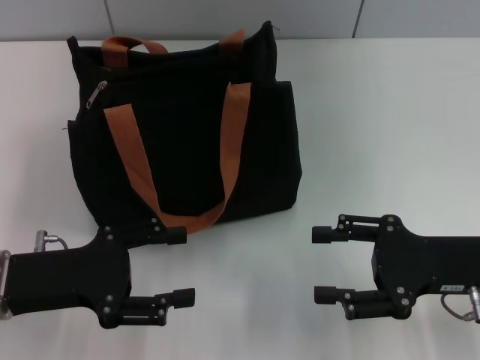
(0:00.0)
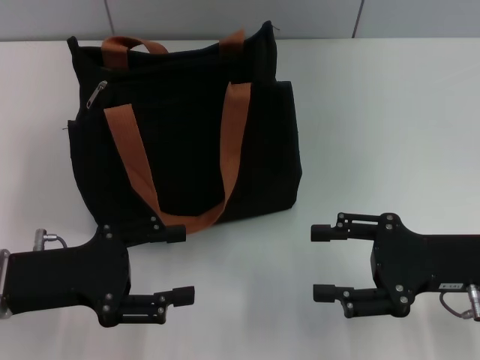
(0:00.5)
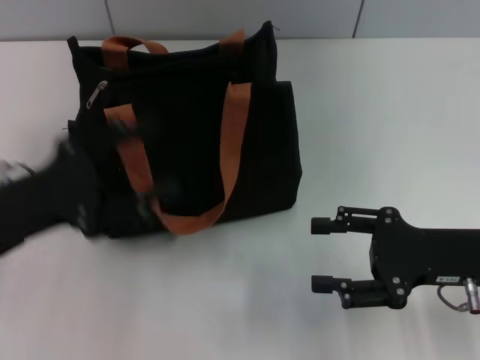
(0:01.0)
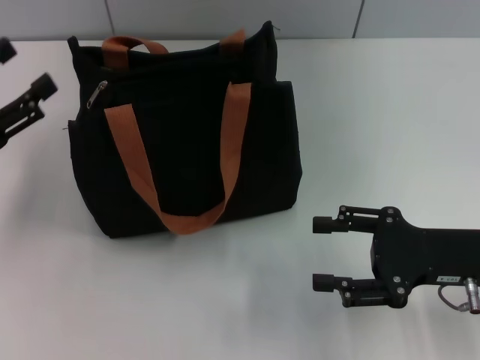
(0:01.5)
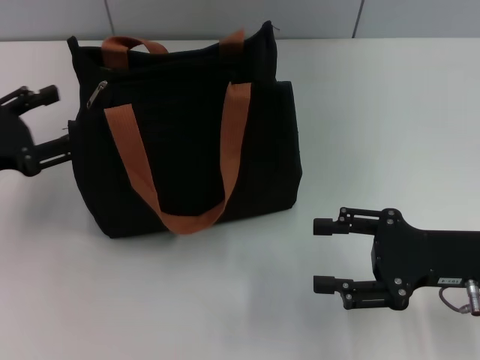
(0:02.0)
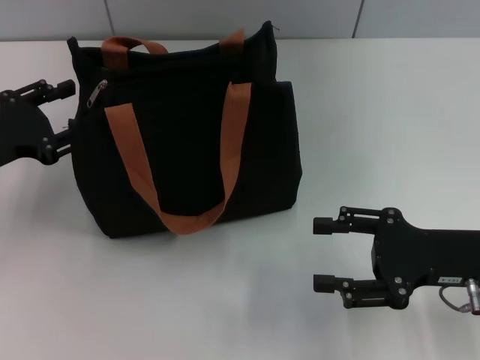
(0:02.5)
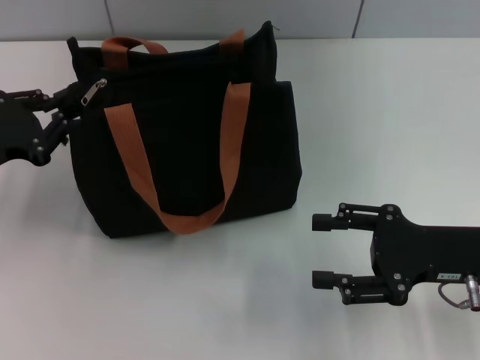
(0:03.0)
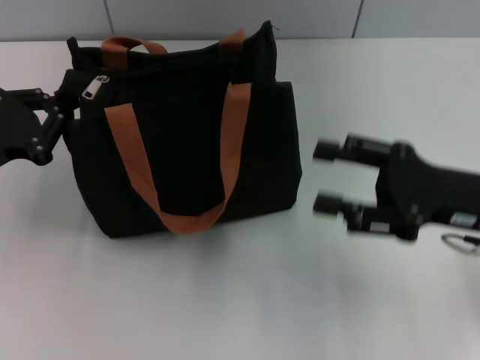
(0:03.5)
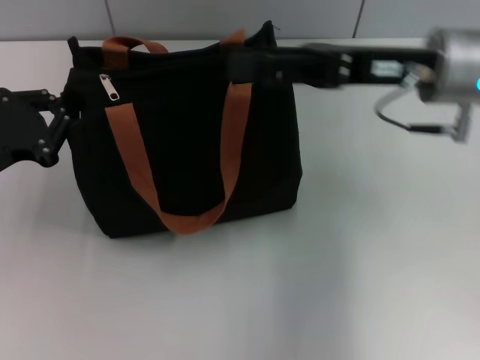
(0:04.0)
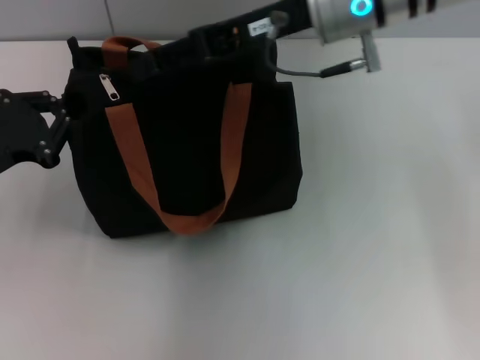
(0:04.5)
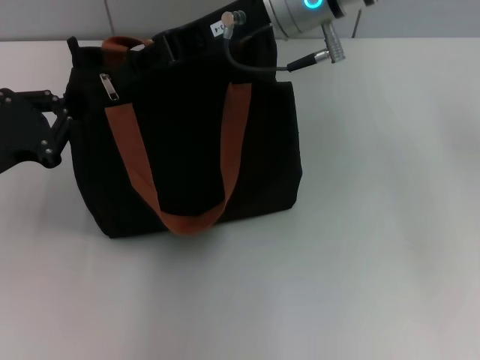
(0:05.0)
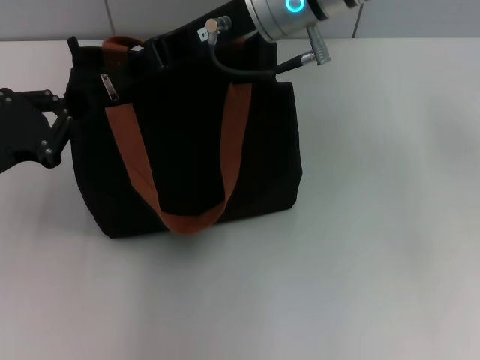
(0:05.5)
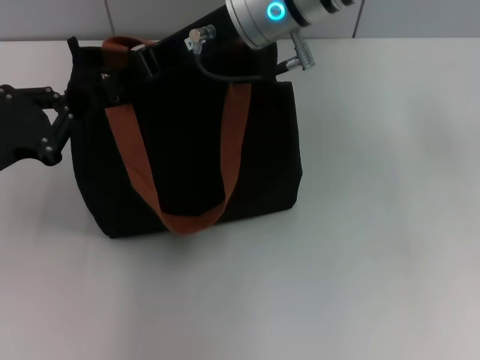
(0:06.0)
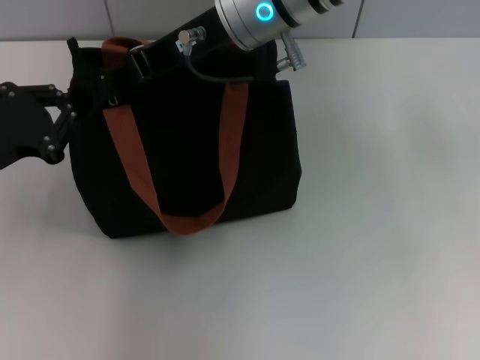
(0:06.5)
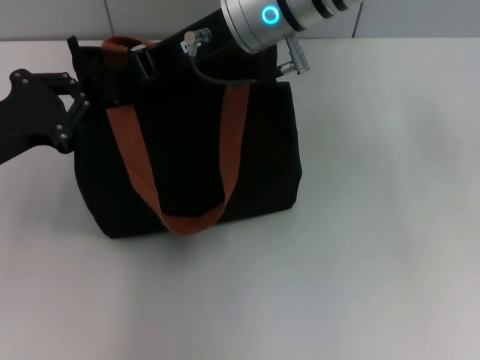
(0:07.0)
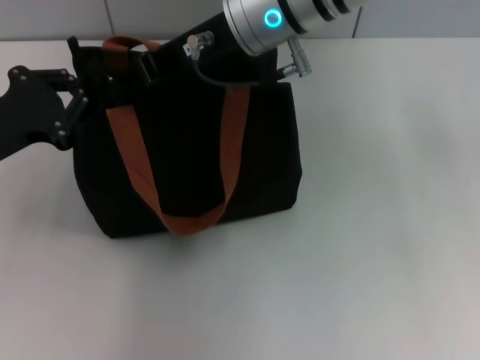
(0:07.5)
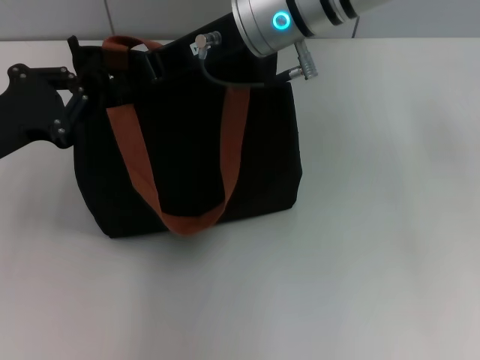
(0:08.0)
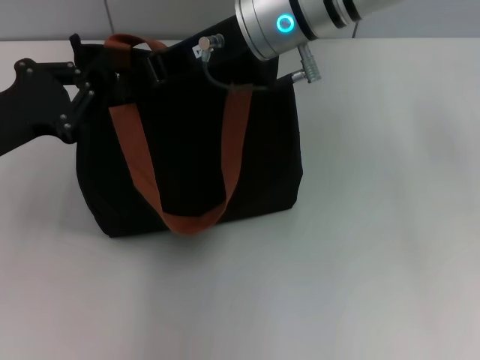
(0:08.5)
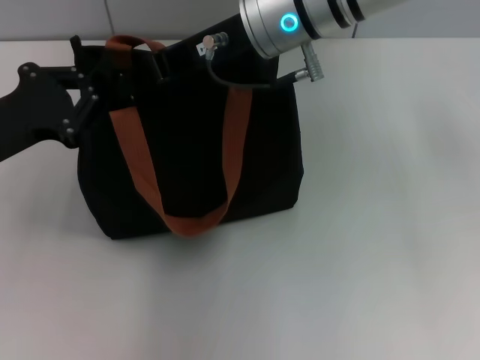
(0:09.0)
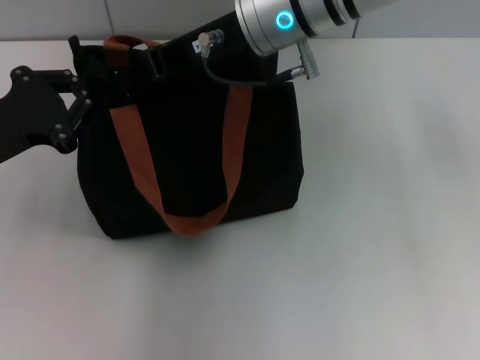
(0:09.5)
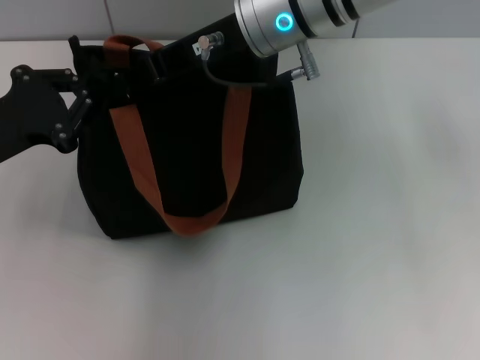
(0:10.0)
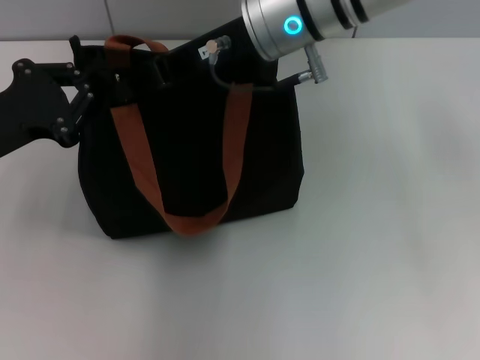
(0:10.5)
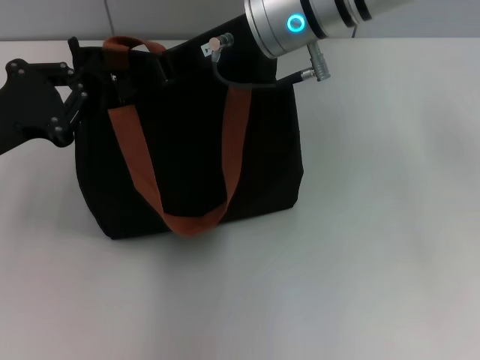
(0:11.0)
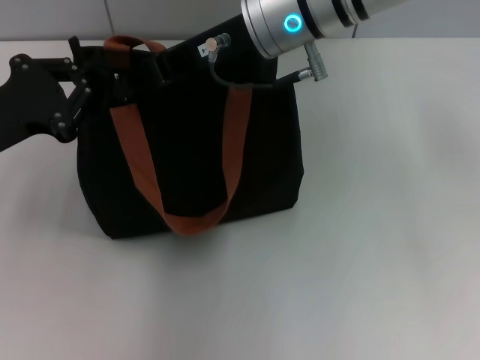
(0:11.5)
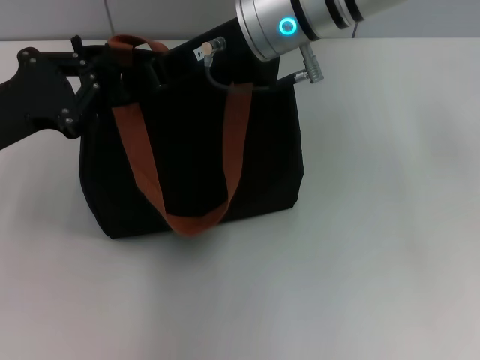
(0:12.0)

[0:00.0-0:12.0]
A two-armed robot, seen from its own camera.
0:00.0 to 0:02.0: The left gripper moves to the left and forward, about 10 cm.
0:02.0 to 0:04.0: The left gripper closes up, while the right gripper travels upward, forward and to the left by roughly 20 cm.
0:04.0 to 0:06.0: The right gripper moves to the left, approximately 15 cm, and closes.
0:06.0 to 0:08.0: The grippers move only a little.
0:08.0 to 0:10.0: Neither gripper changes place.
0:10.0 to 0:12.0: The grippers move only a little.

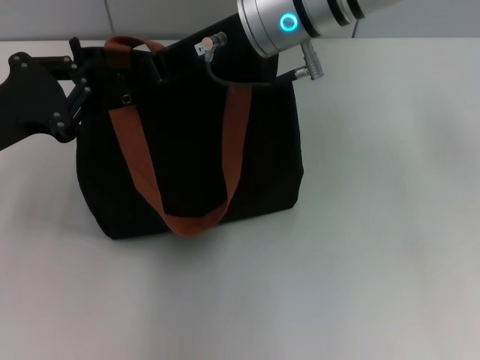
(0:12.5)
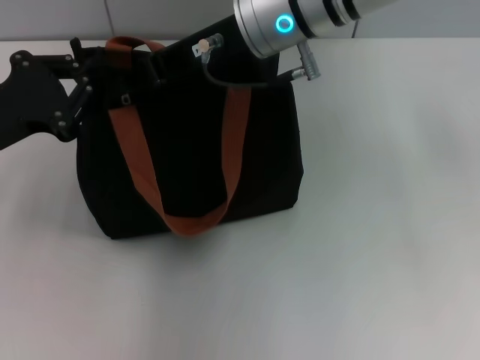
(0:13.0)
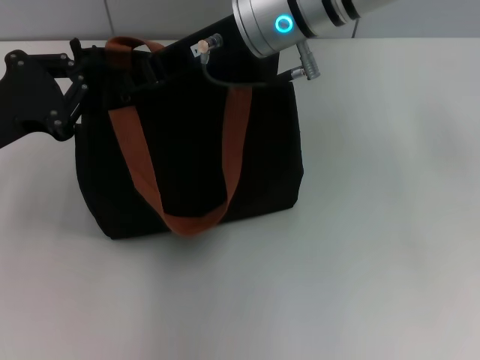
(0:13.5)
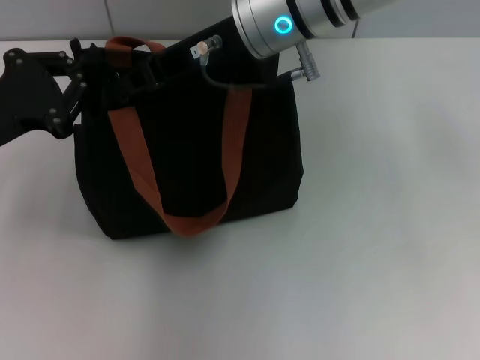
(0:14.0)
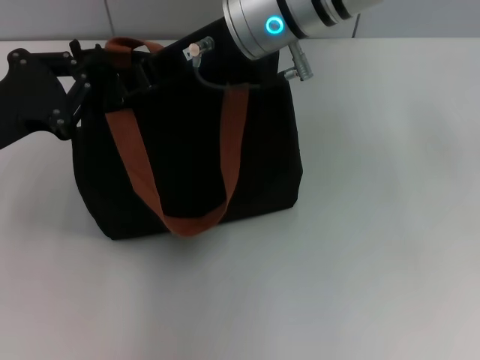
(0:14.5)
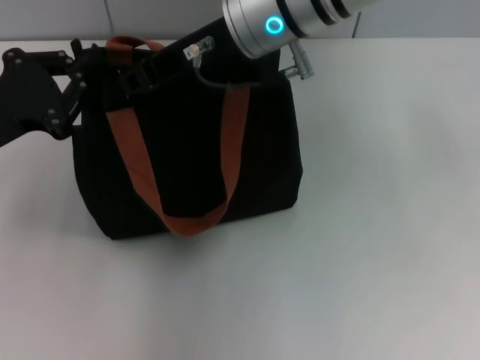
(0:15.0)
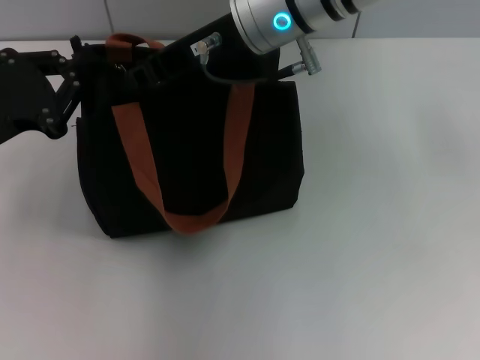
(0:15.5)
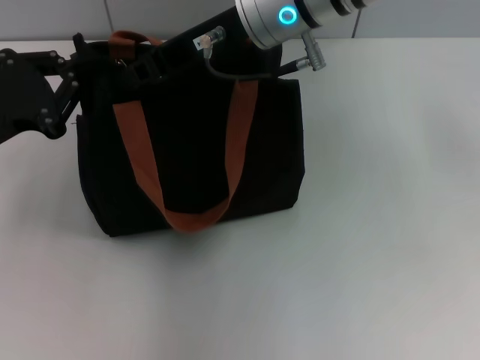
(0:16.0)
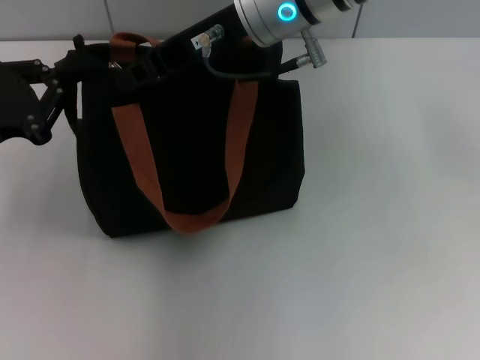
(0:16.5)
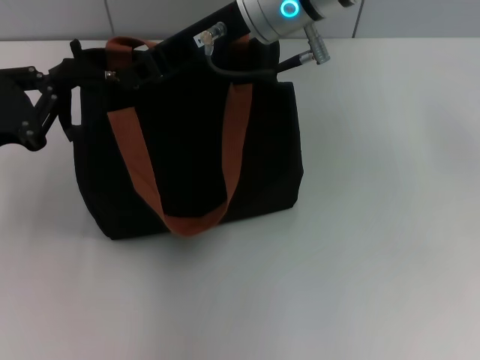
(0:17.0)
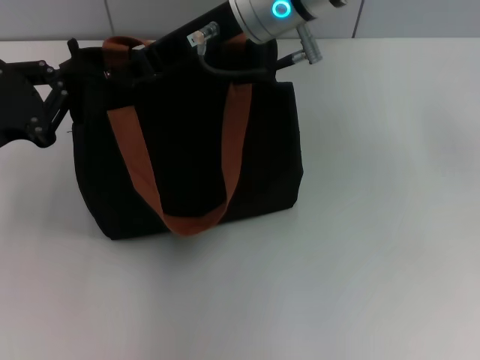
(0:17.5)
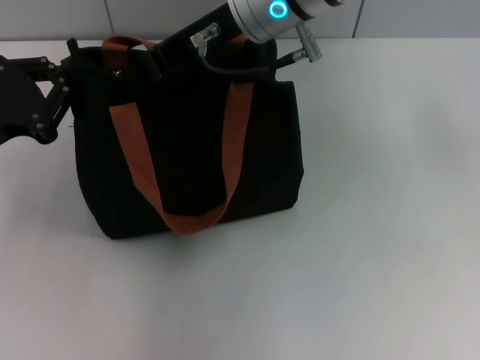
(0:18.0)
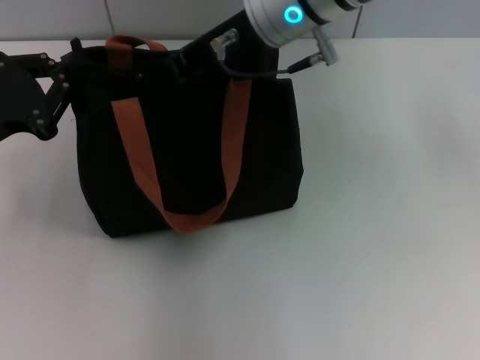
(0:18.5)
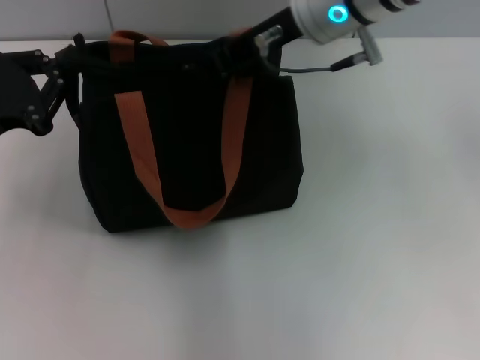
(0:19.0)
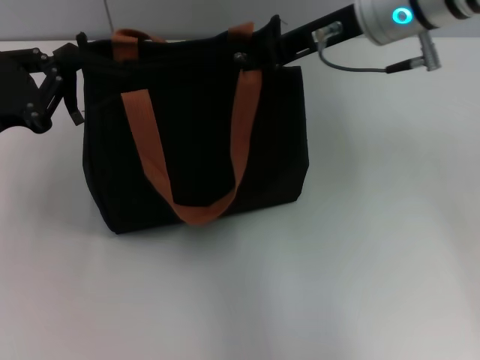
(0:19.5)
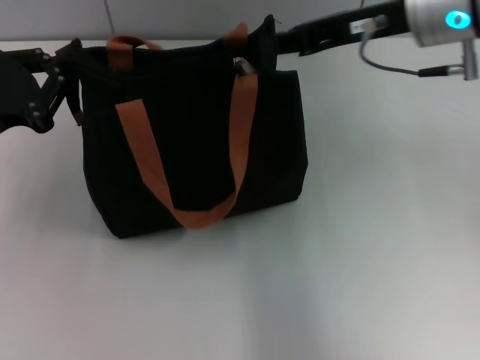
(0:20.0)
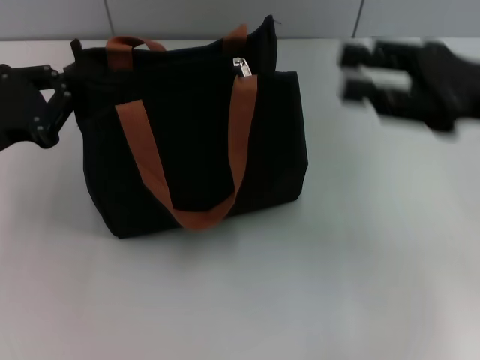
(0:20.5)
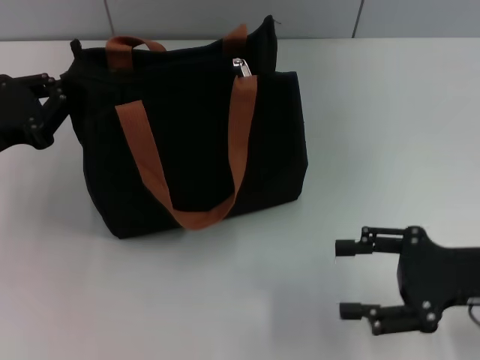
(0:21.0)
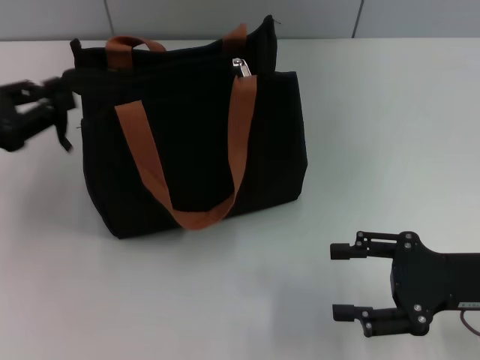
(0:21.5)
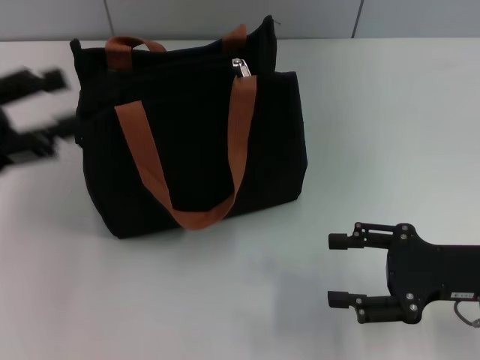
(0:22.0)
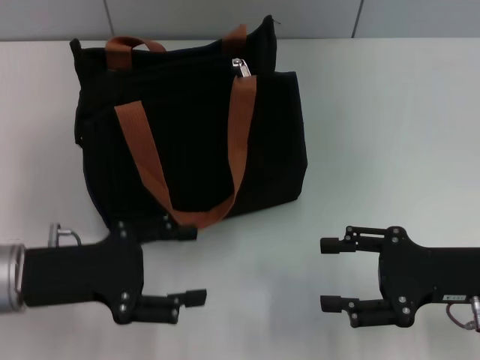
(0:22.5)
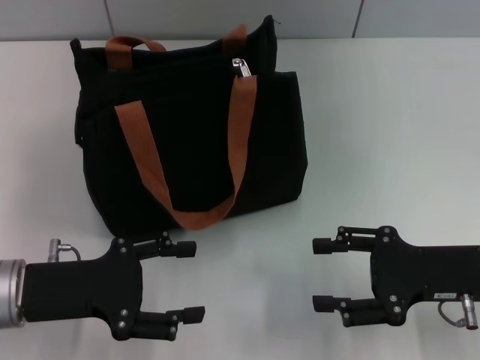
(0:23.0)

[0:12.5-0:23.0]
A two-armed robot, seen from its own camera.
Step, 0:12.5 to 0:19.5: Pull up the zipper with your right hand.
Step, 0:20.0 to 0:21.5: Grab the zipper with your left hand.
0:12.5 to 0:14.5: Neither gripper changes place.
0:14.5 to 0:19.0: The grippers stay close to where they were, moving slightly.
0:19.0 to 0:21.0: The right gripper heads to the right, backward and downward, covering some 30 cm, and opens up.
0:21.0 to 0:23.0: The left gripper travels backward, to the right and downward by about 10 cm, and opens.

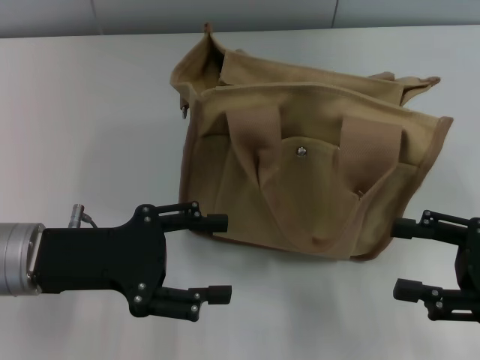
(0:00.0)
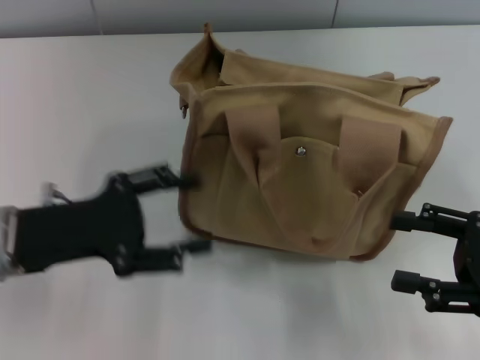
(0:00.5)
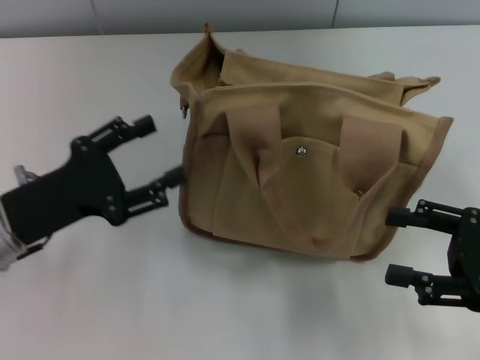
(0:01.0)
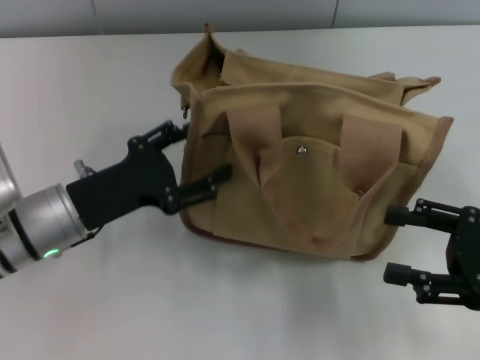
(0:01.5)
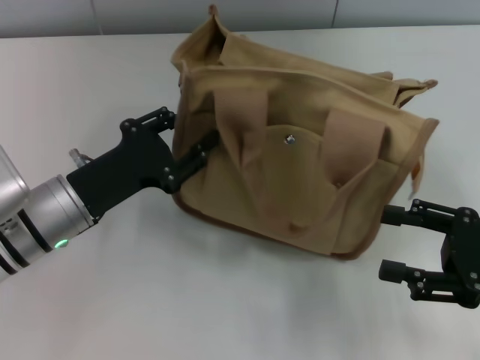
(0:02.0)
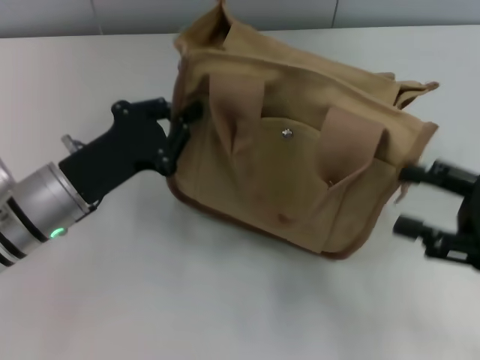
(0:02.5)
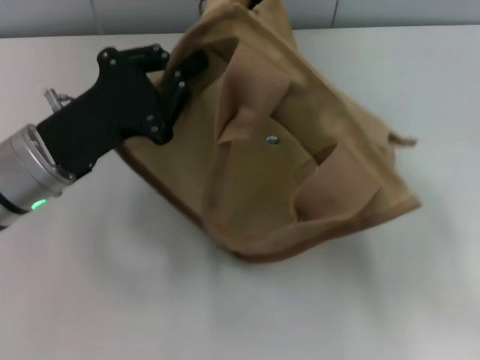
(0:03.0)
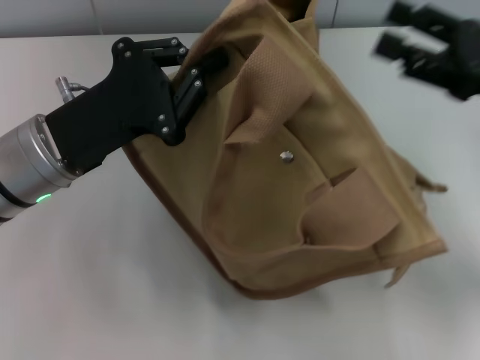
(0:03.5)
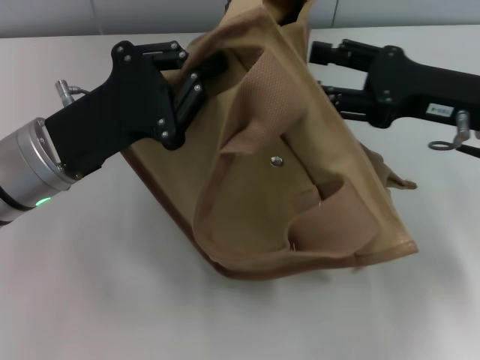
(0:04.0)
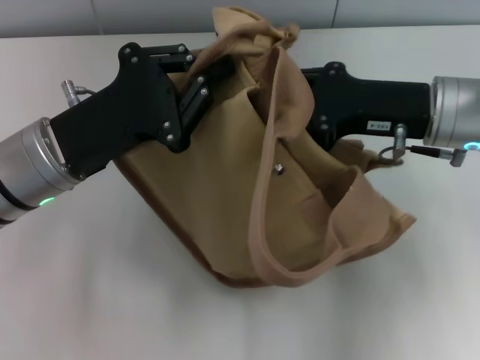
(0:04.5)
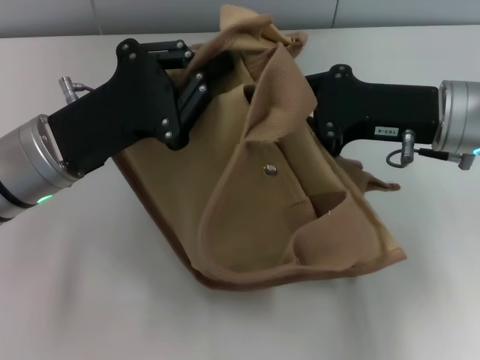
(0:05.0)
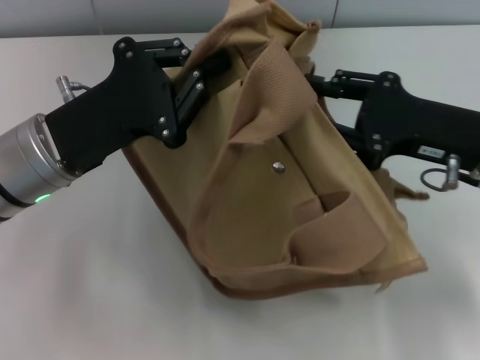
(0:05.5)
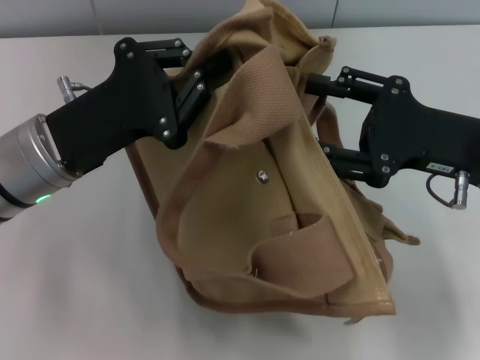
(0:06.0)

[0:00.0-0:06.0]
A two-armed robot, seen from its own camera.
0:00.0 to 0:02.0: The left gripper ends up some 5 cm from where it was.
0:02.0 to 0:04.0: The right gripper is displaced forward, to the left and upward by about 15 cm, while the left gripper goes roughly 5 cm upward, and closes.
0:04.0 to 0:06.0: The right gripper closes and opens again.
